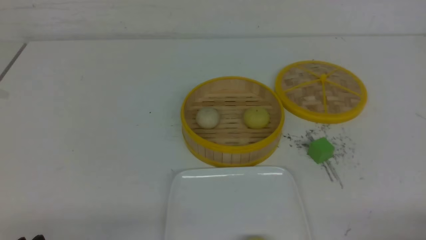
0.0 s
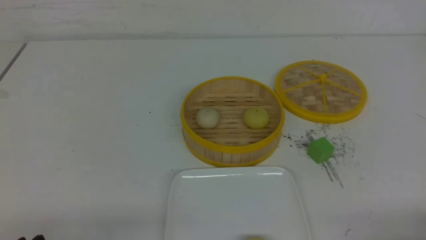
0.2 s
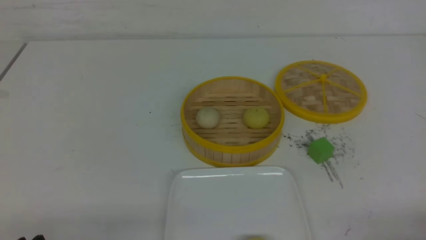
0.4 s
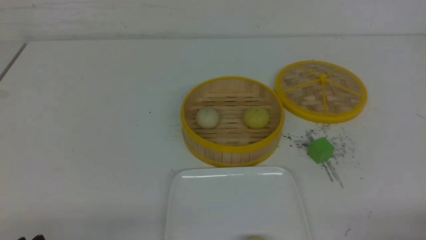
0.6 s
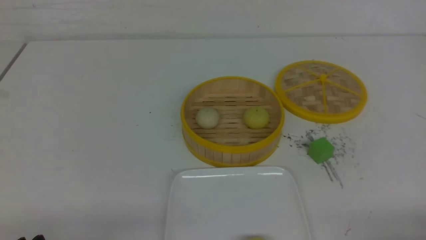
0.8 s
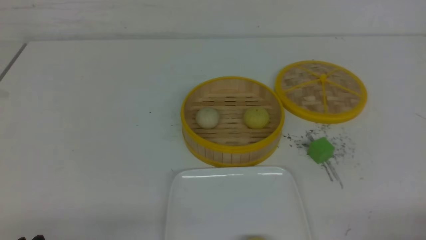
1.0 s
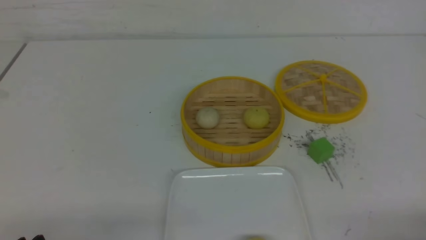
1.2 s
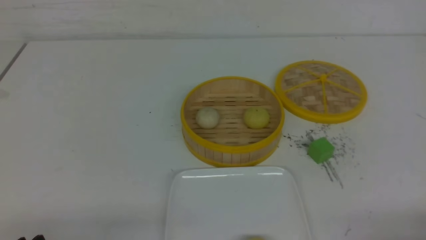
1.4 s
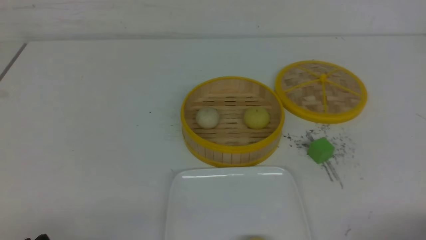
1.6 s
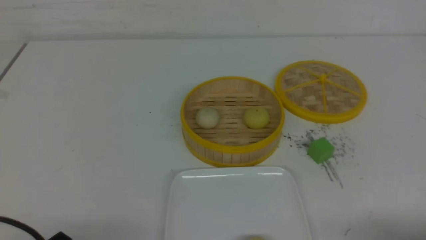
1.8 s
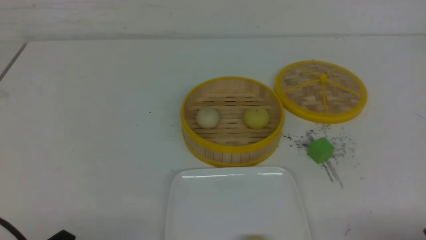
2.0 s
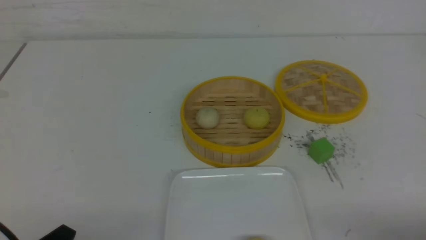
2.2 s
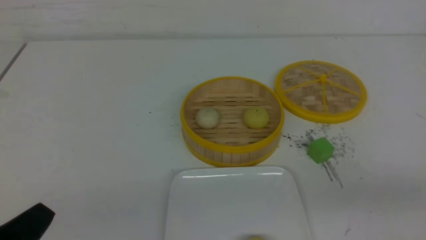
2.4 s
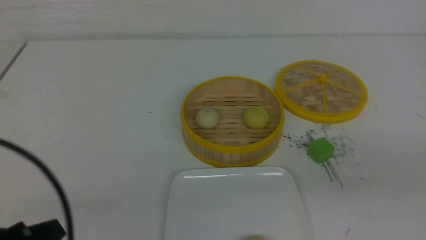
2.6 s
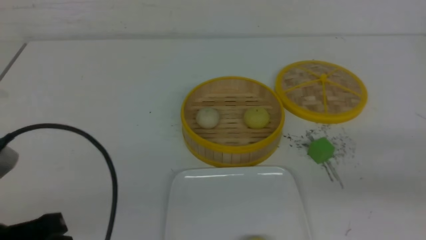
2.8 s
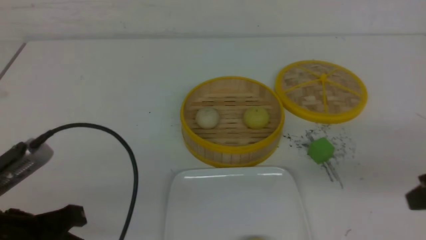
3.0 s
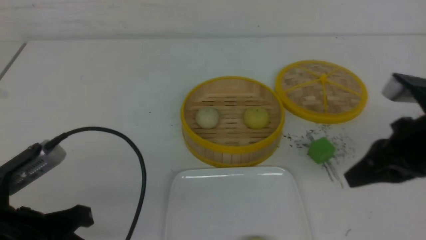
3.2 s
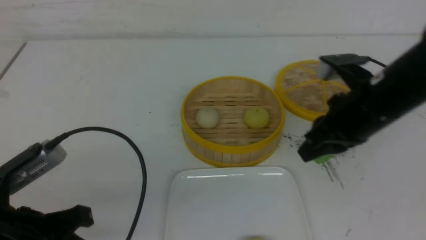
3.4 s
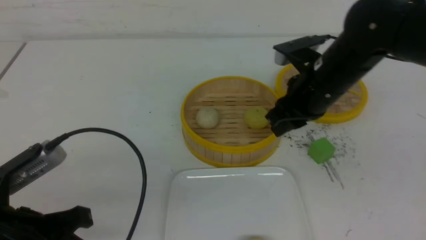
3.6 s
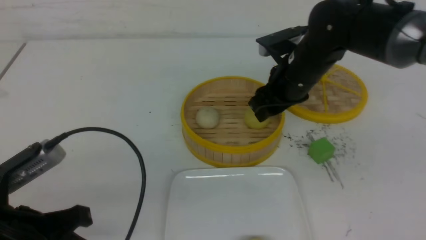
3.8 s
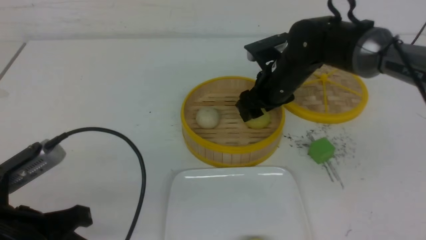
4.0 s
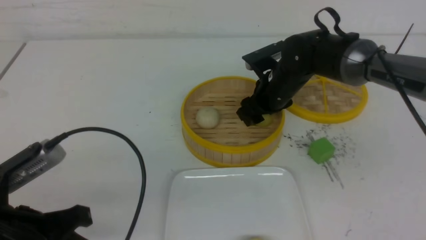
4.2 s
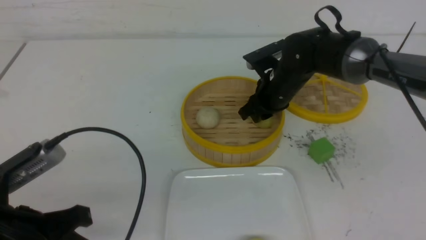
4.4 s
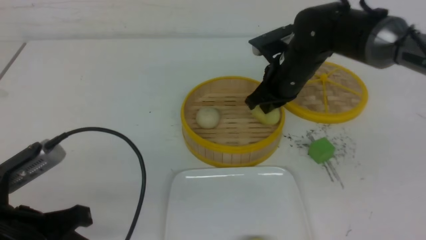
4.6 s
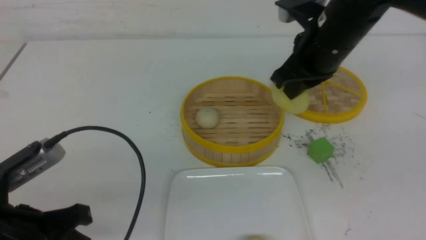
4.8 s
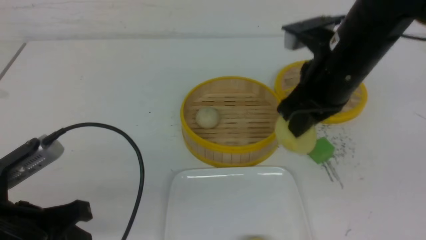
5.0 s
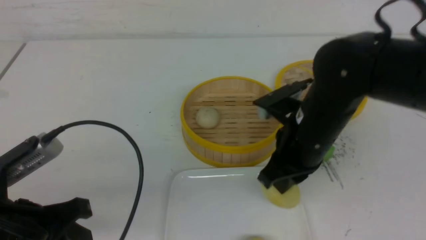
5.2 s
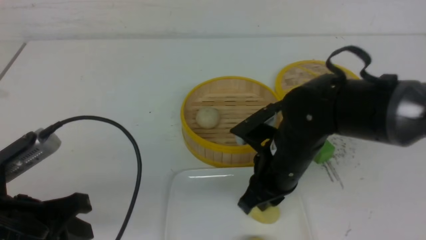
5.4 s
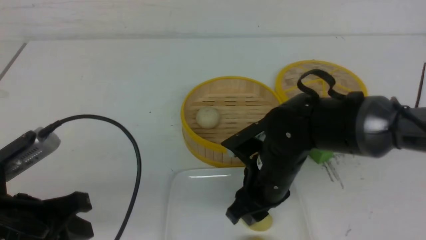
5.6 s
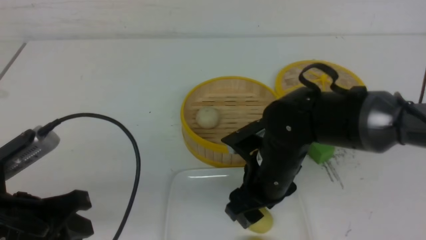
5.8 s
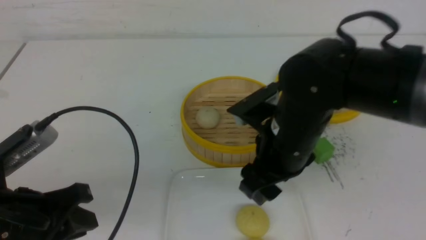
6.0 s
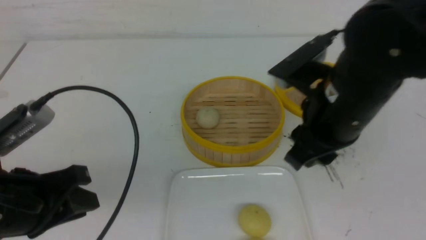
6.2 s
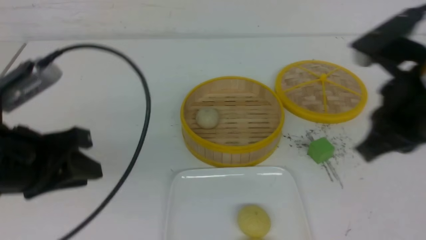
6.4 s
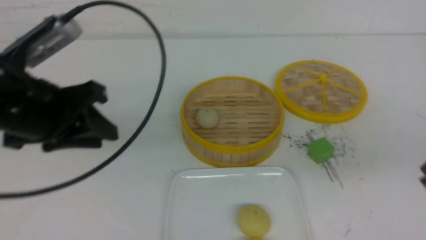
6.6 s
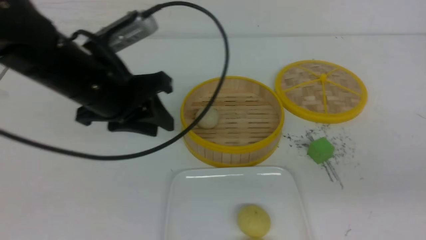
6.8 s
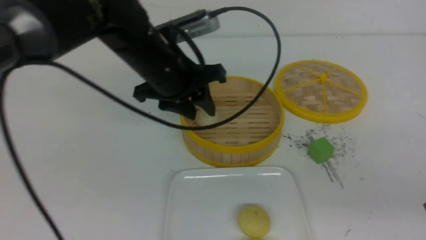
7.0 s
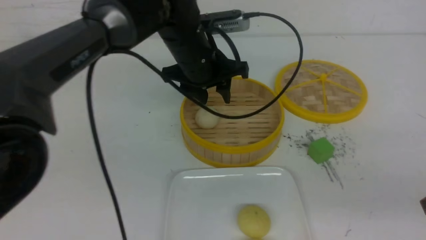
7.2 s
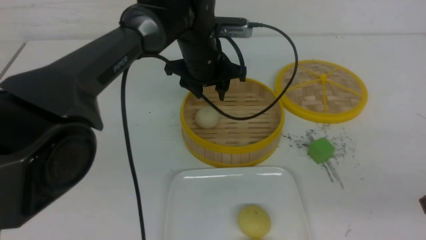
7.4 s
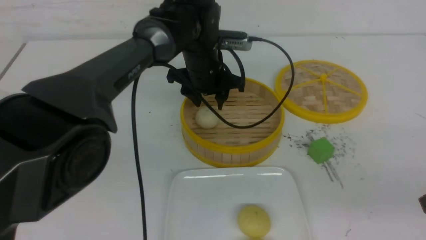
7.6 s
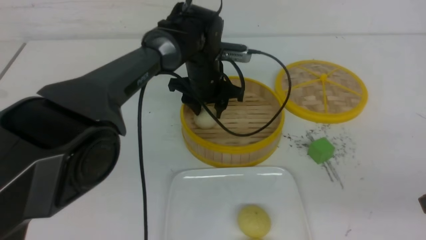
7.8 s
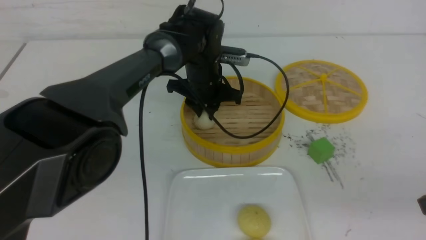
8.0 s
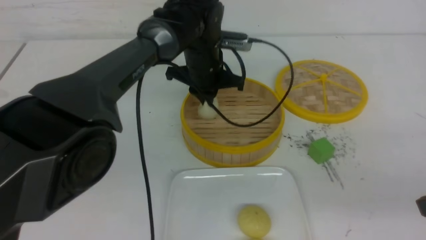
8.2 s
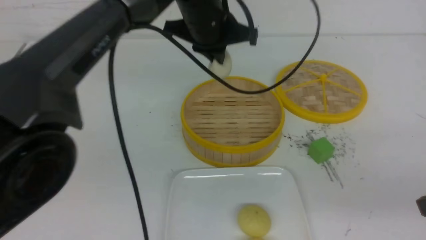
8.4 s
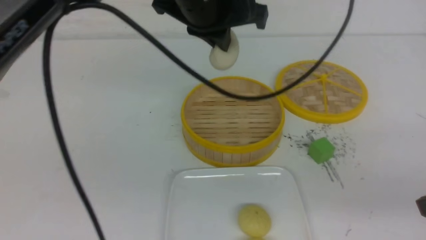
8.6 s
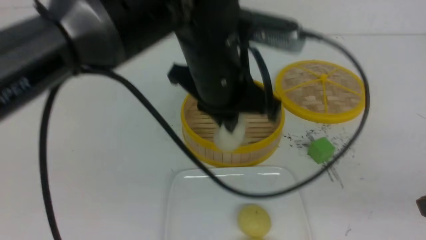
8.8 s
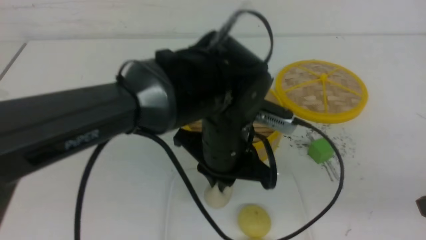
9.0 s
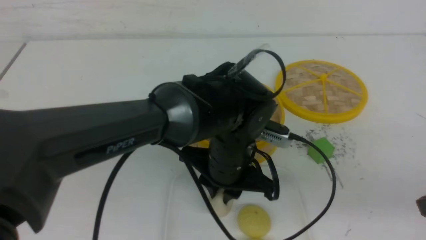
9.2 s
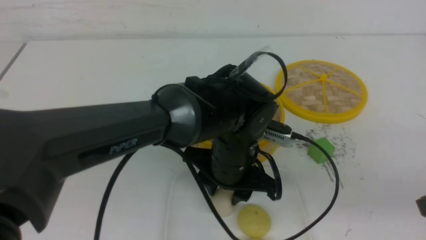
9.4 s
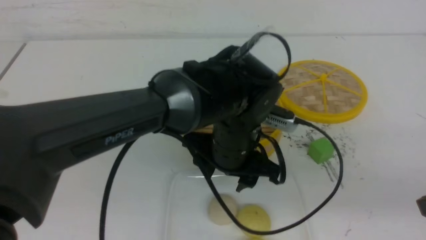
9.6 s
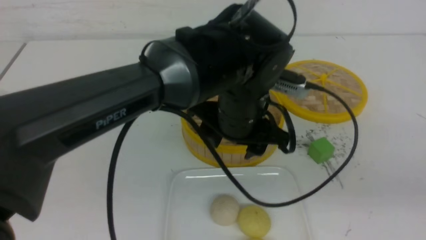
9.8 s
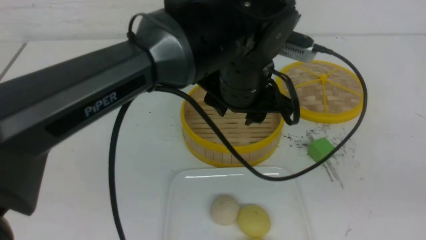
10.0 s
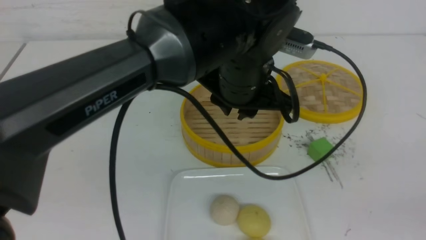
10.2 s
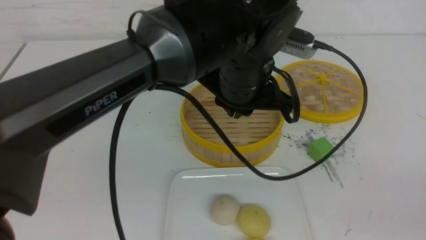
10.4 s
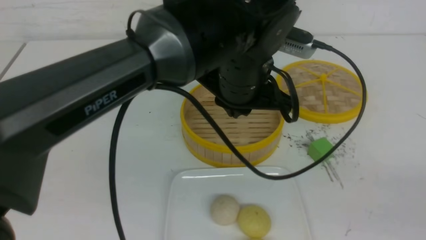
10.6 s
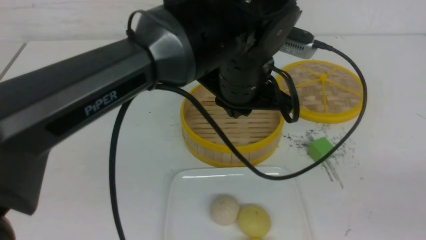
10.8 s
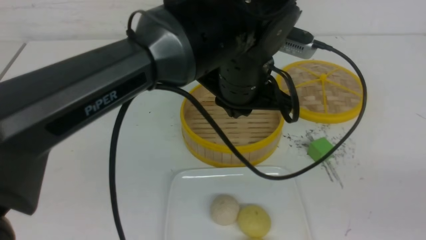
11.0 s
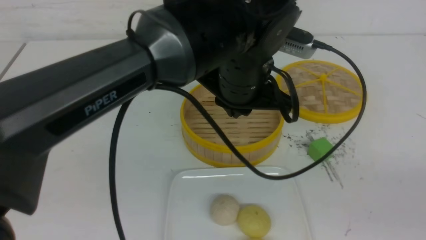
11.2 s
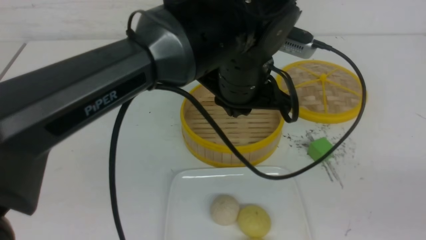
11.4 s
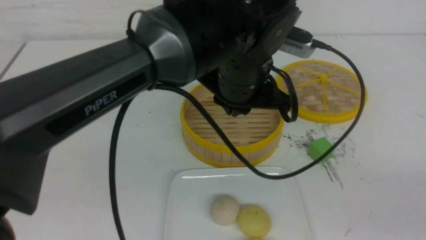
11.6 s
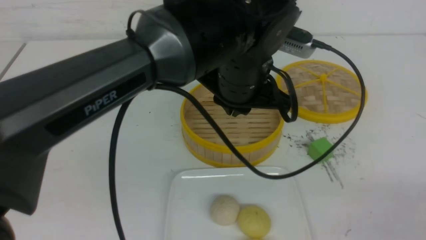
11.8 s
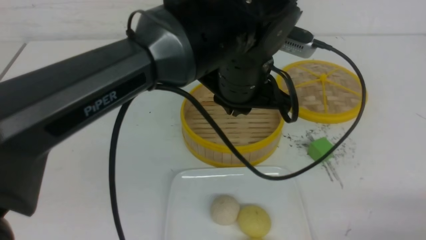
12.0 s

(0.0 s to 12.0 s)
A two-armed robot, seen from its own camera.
Step, 0.0 s - 4.2 s: use the right arm to grab the steamed stuffed bun that is closest to it.
Step, 4.4 s - 5.6 s: use the right arm to put the steamed stuffed bun into the plate.
Step, 5.8 s - 8.0 s: use the left arm to grab the steamed stuffed bun that is closest to it.
Step, 8.2 s - 9.4 s: use the left arm to put the steamed stuffed bun into the plate.
1.6 s - 3.0 s: The left gripper goes some 10 cm upward and forward, and closes; the right gripper is displaced forward and upward by roughly 20 cm, and closes.
3.0 s - 4.4 s: The right gripper goes some 30 cm forward and to the left, and opens.
4.4 s - 6.0 s: The right gripper moves backward, approximately 15 cm, and opens up.
6.0 s - 7.6 s: The right gripper moves to the right and backward, approximately 25 cm, and closes. Meanwhile the left gripper goes some 35 cm forward and to the right, and opens its fingers.
7.6 s - 9.0 s: The left gripper goes about 15 cm backward, and closes up.
9.0 s - 10.4 s: The left gripper moves upward, some 5 cm, and opens and closes again. Meanwhile the right gripper moves backward and to the right, some 10 cm.
10.4 s - 12.0 s: The right gripper shifts about 10 cm downward.

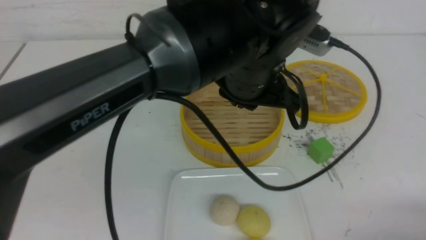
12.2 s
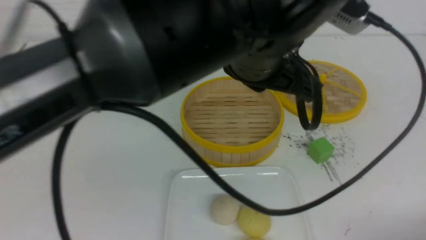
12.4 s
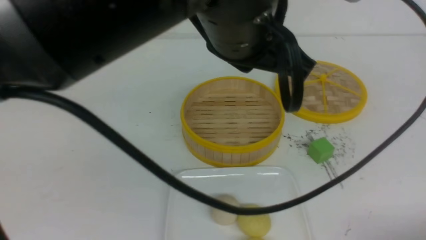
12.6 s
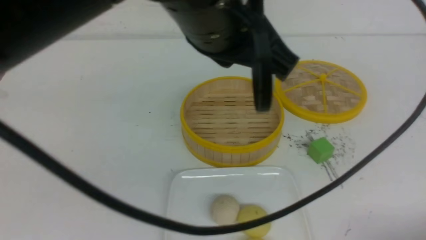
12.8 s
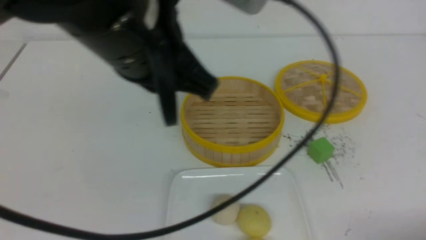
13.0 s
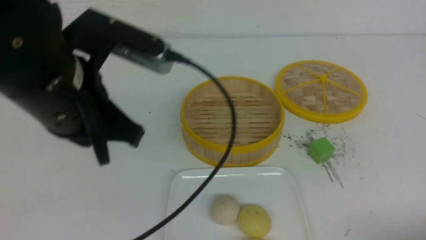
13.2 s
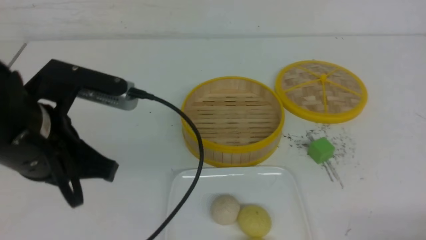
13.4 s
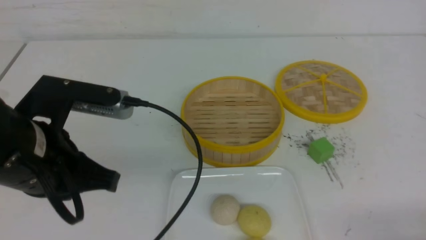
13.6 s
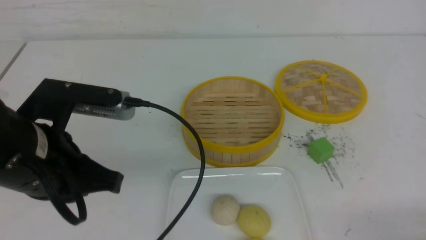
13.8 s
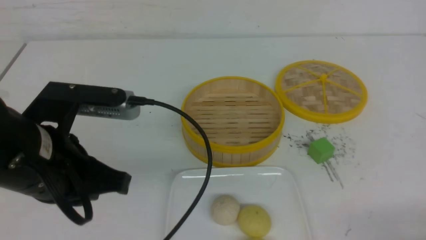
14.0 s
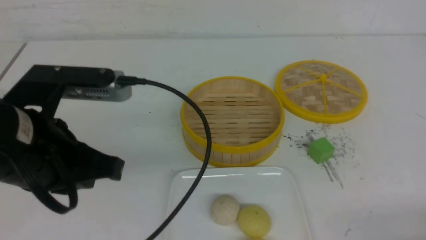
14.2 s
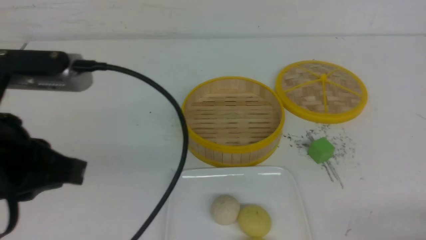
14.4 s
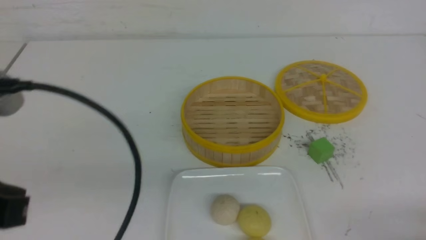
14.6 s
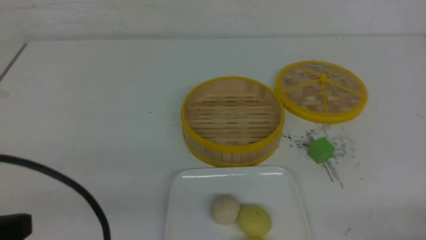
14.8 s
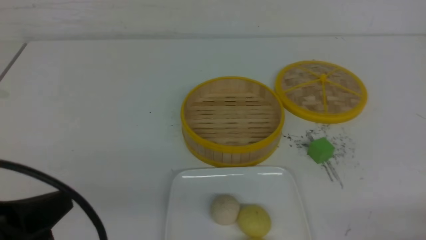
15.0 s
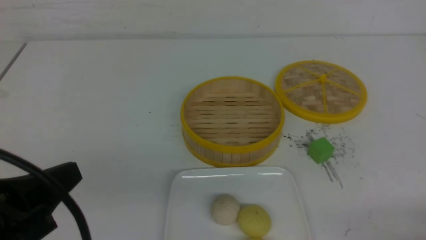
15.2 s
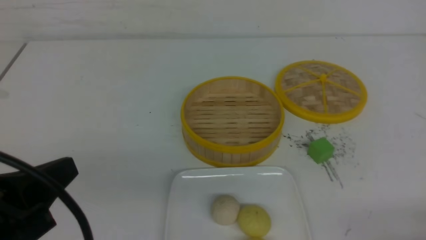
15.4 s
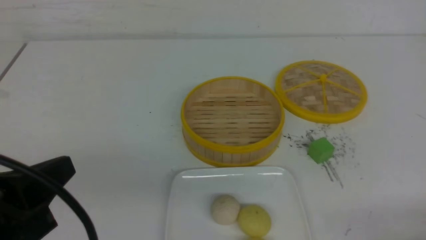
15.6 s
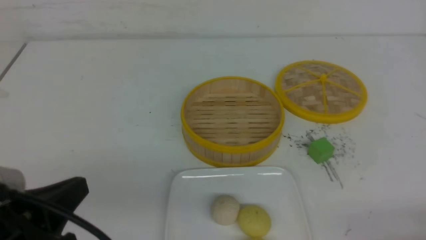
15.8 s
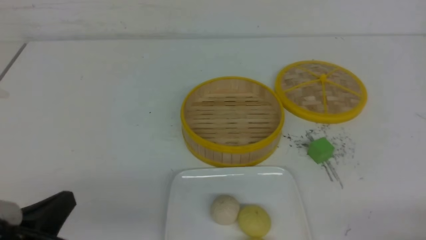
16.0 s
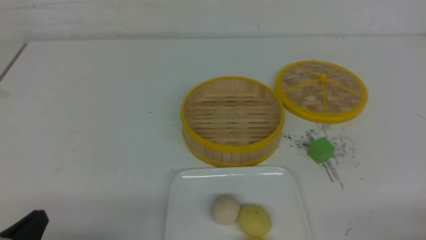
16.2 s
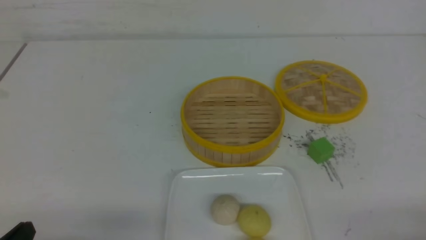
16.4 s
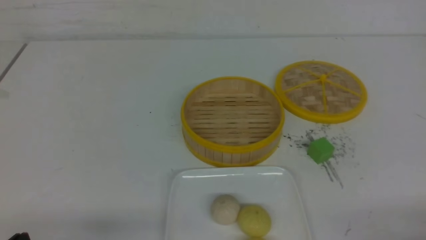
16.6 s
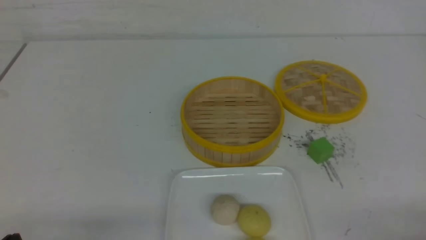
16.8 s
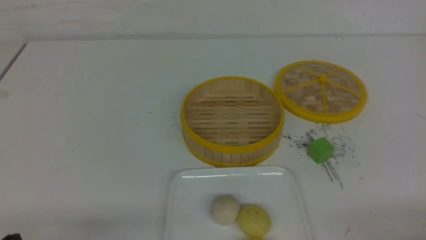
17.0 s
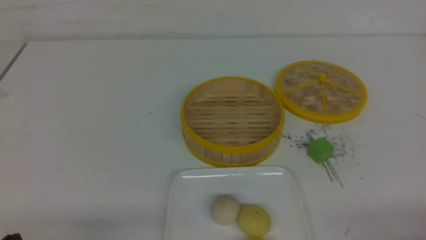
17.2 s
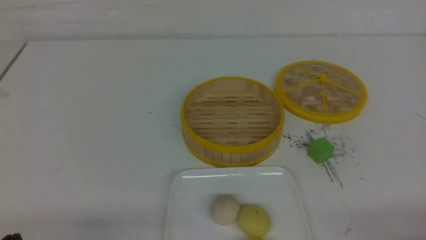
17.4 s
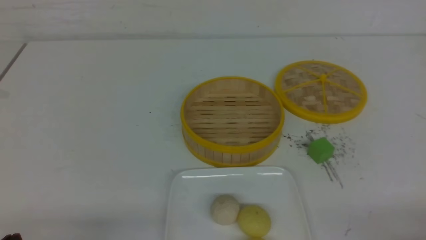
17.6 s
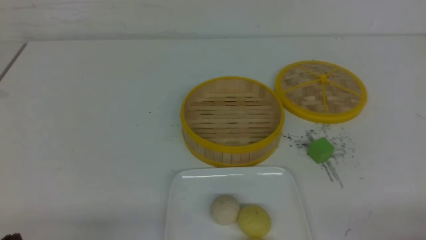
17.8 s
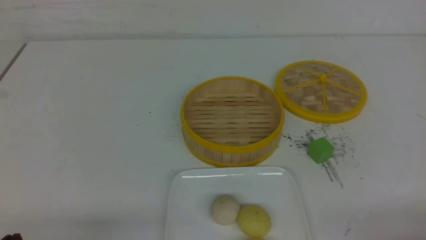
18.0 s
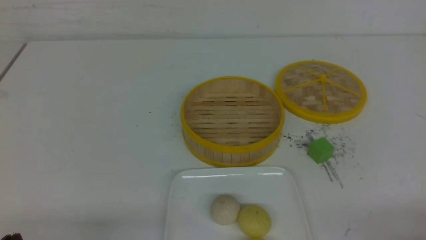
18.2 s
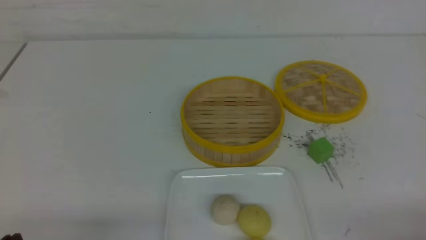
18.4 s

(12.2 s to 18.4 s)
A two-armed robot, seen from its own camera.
12.2 s - 13.8 s: The left gripper heads to the left, covering roughly 20 cm.
13.8 s - 15.4 s: The left gripper heads backward, covering roughly 10 cm.
15.4 s - 16.8 s: The left gripper moves downward, some 15 cm.
16.8 s - 18.4 s: Both grippers stay about where they are.
